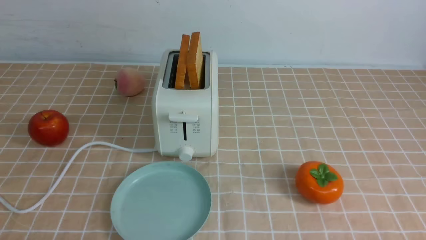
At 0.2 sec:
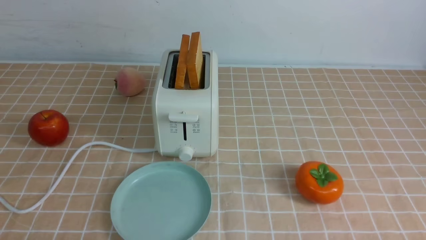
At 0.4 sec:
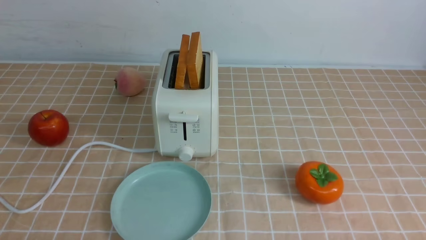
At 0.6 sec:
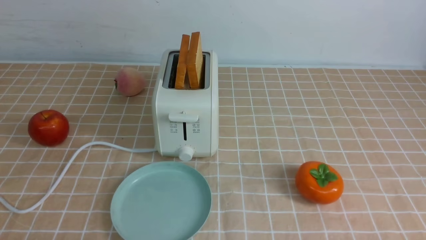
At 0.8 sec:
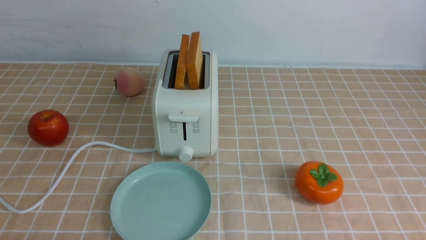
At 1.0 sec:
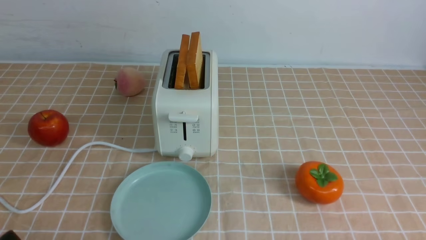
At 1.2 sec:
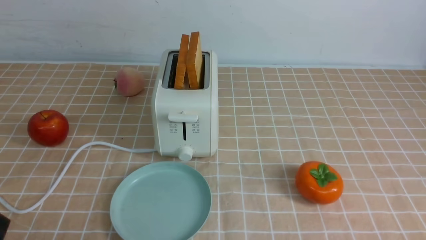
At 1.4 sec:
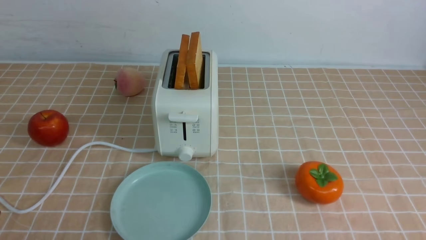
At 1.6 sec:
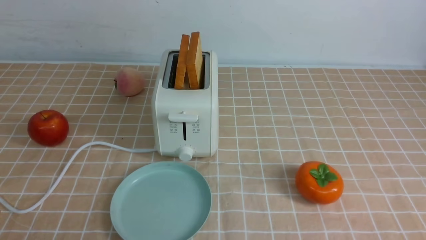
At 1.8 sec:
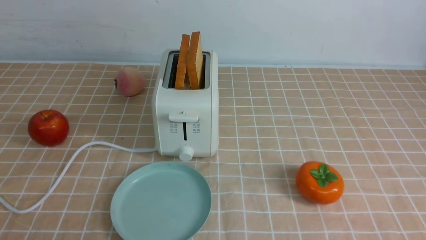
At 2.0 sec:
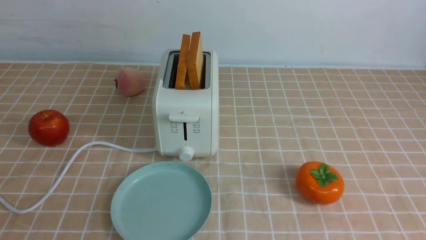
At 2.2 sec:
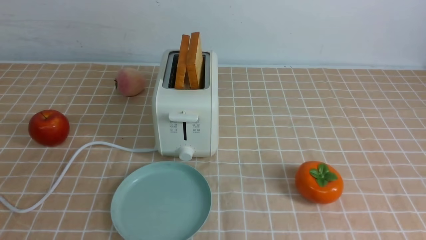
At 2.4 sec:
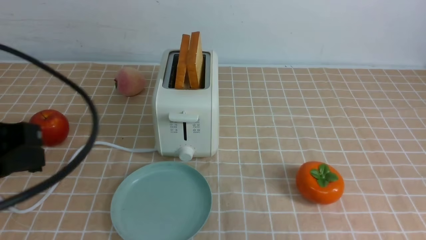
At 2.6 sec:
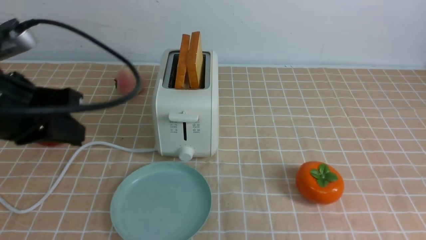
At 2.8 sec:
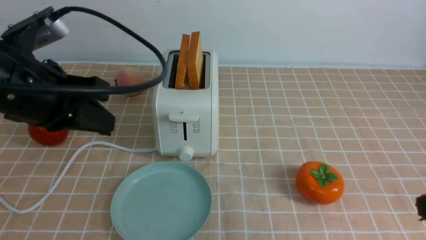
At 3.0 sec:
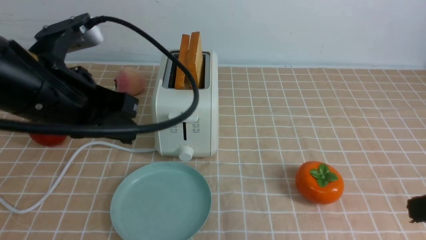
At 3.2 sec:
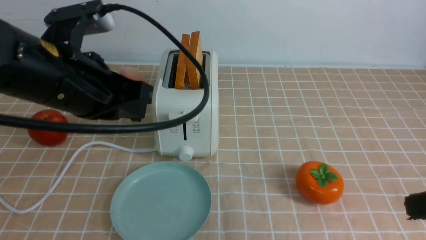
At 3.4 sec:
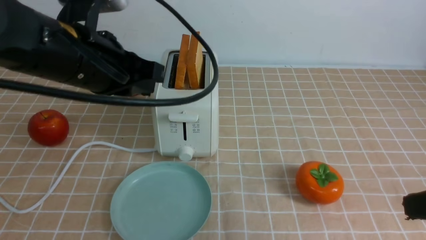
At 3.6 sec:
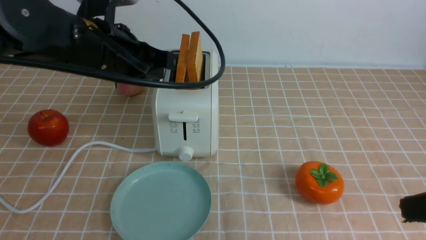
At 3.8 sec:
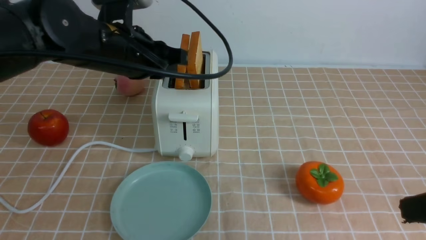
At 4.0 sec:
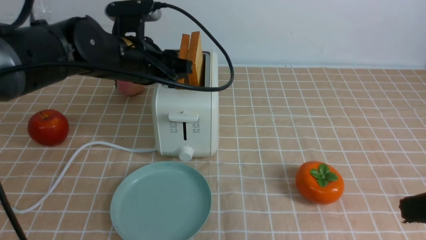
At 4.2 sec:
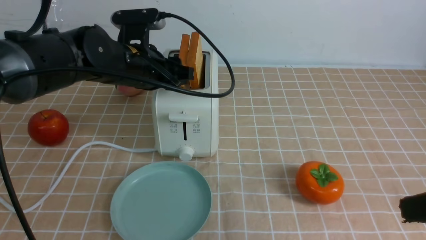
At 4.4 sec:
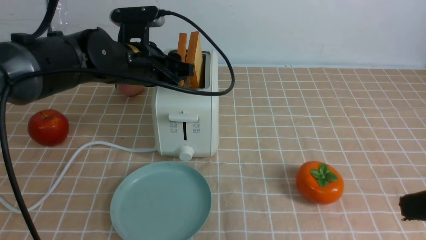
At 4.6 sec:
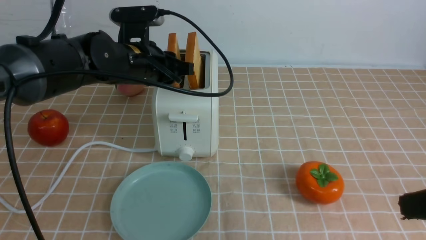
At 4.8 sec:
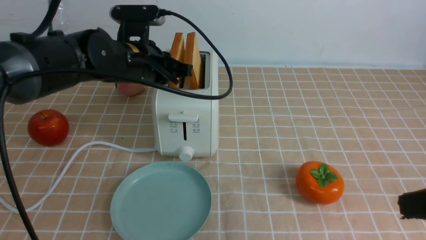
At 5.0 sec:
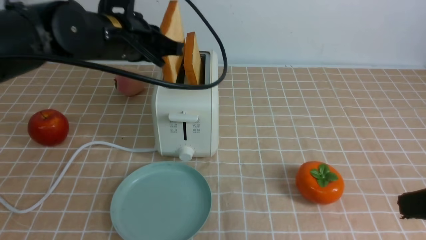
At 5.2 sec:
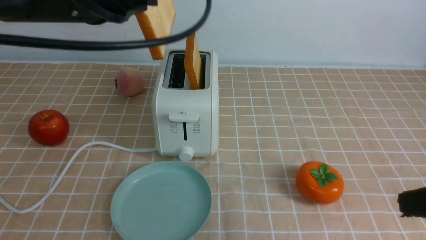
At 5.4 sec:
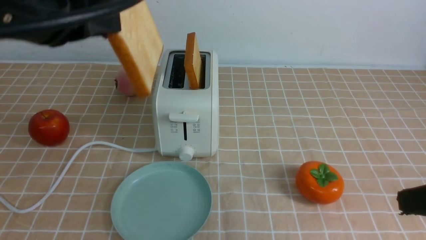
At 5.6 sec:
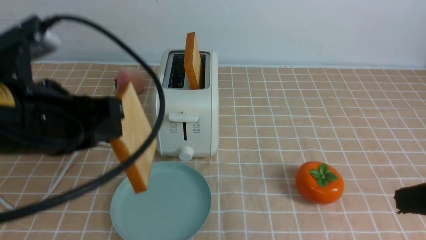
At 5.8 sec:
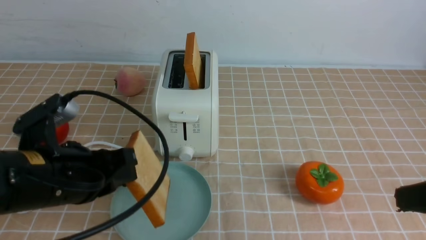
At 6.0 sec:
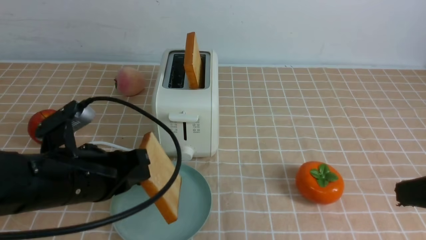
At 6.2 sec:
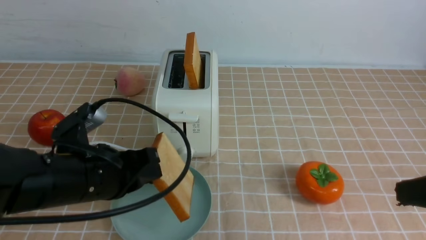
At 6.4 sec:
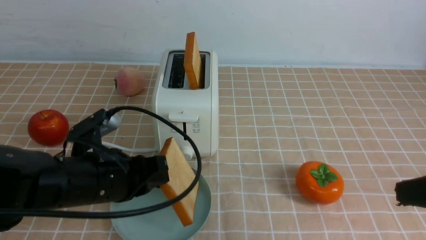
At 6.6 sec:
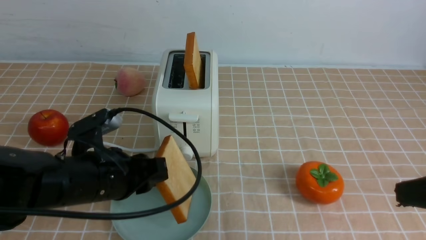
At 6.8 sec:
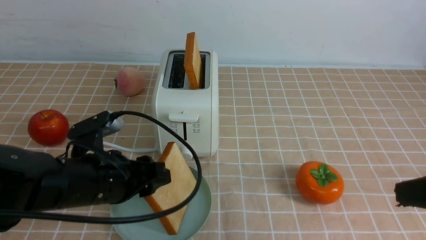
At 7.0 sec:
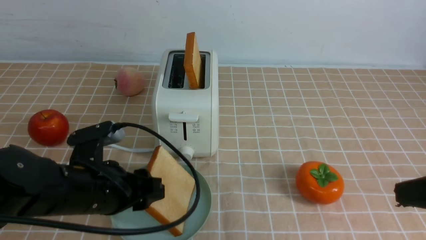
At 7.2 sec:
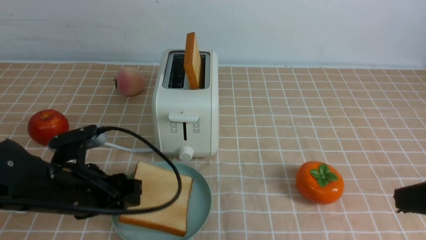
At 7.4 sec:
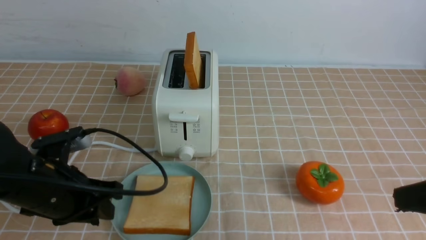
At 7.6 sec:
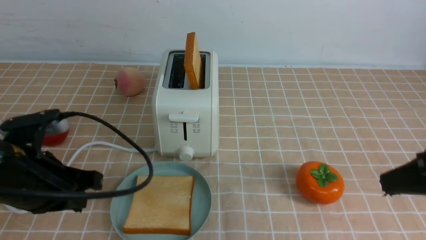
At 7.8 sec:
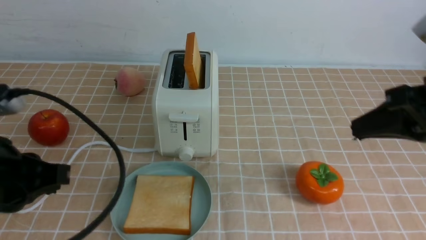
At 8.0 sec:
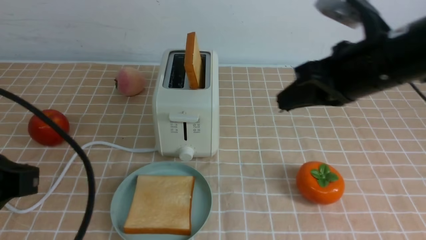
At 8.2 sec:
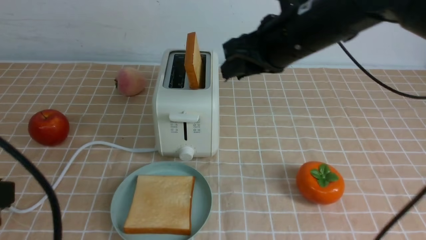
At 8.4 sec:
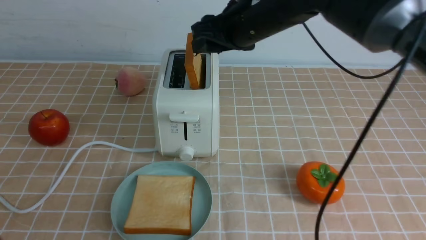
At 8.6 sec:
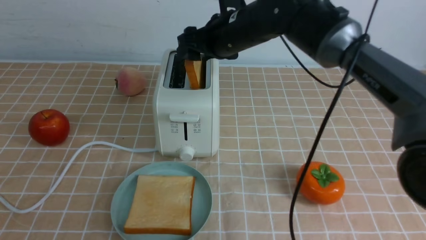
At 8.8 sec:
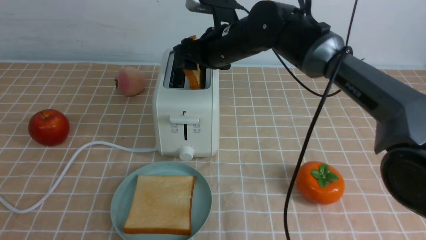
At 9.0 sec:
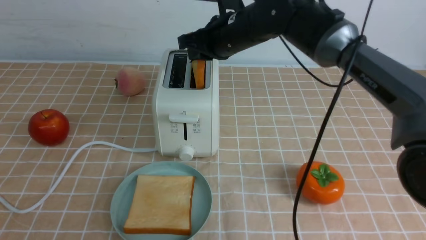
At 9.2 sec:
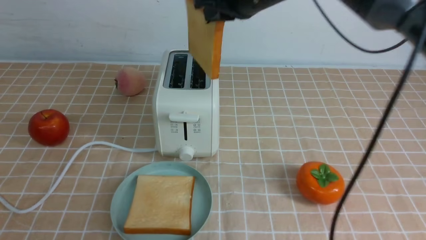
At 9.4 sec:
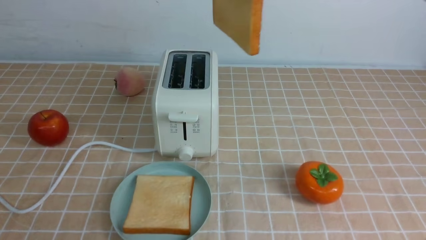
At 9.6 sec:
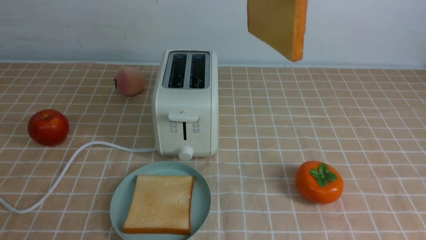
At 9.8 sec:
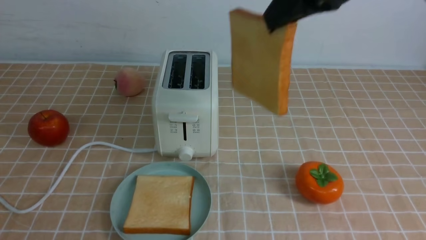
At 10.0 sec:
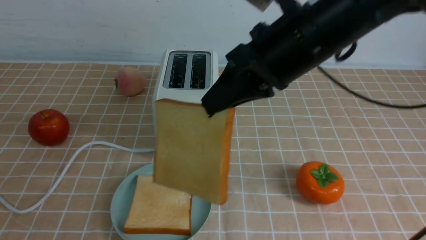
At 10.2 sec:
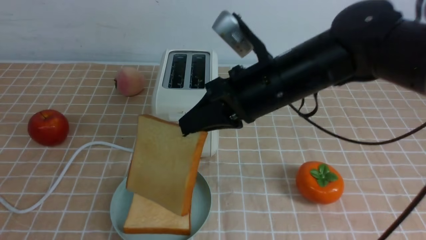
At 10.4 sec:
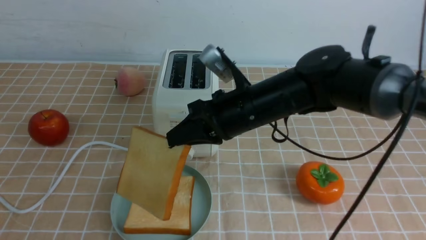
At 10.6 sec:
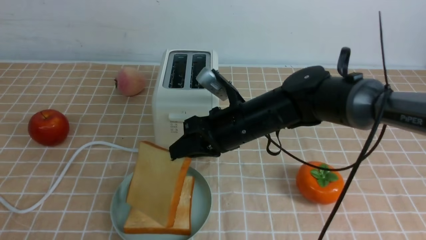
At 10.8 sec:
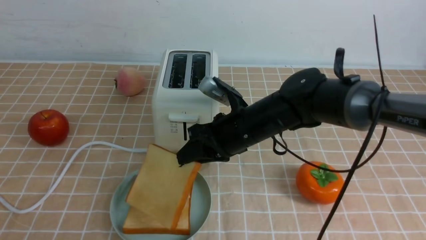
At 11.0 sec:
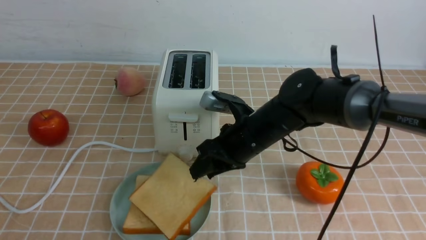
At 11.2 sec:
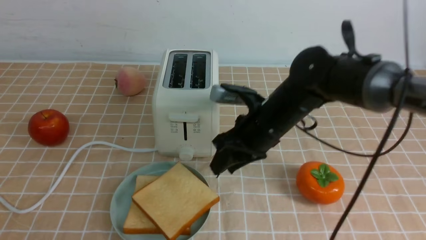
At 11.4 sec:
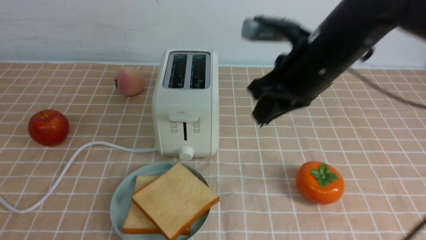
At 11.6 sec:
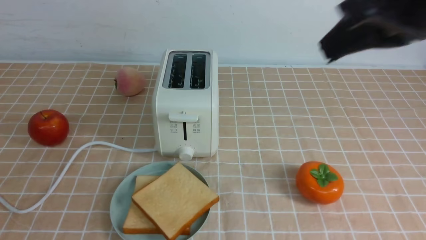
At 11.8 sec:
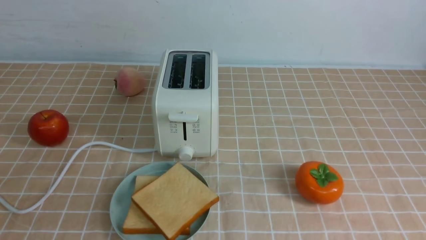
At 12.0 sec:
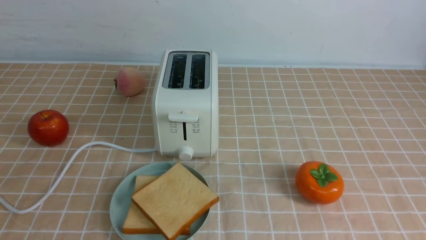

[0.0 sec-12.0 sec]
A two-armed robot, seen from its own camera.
Task of the whole recording: take toasted bread from bread machine on light coffee tablecloth place on plate.
Step, 0.0 sec to 5.0 sec: use the left arm to take out a slice of bread.
Step, 5.2 sec to 7.2 sec: use the left arm to put a slice of bread into the empty plate.
Step, 7.6 sec to 9.0 sec: use the right arm to take out a slice of bread.
Step, 9.2 sec to 11.0 sec: use the right arm to put a slice of bread into the plate.
1.6 sec to 3.0 sec: The left gripper moves forward, upward and to the right, about 25 cm, and closes up; the right gripper is displaced upward and forward by approximately 15 cm, and closes its fingers.
3.0 sec to 4.4 sec: The left gripper is displaced forward and downward by about 15 cm, and opens its fingers.
4.4 sec to 6.0 sec: The left gripper is displaced backward by approximately 20 cm, and closes up.
6.0 sec to 7.6 sec: The left gripper ends up about 5 cm from where it was, and opens and closes again.
7.6 sec to 9.0 sec: The left gripper goes approximately 20 cm backward and upward. The right gripper heads forward and to the left, covering roughly 35 cm, and opens, then closes once more.
9.0 sec to 10.4 sec: The right gripper moves backward and downward, some 15 cm.
10.4 sec to 12.0 sec: The right gripper moves backward, to the right and upward, about 40 cm, and opens and closes again.

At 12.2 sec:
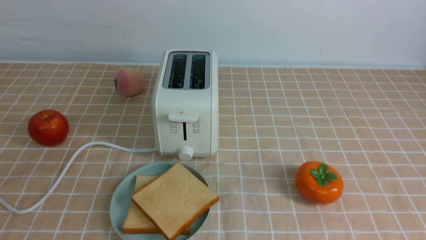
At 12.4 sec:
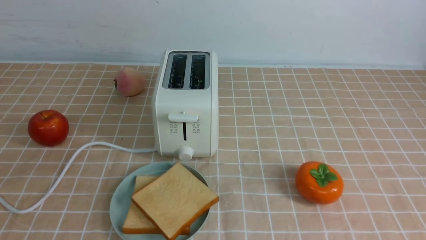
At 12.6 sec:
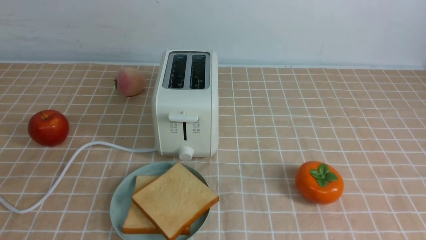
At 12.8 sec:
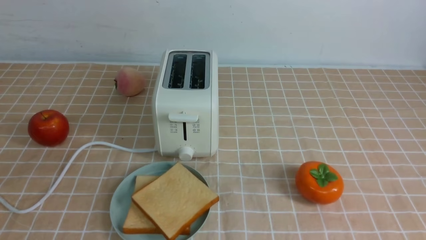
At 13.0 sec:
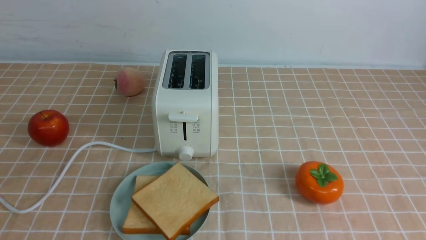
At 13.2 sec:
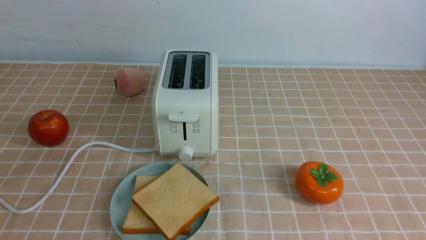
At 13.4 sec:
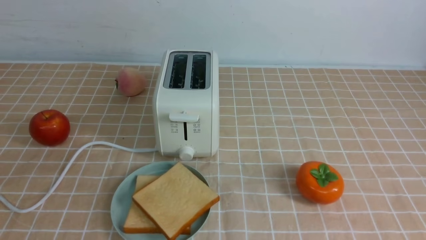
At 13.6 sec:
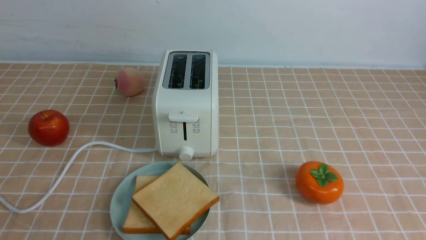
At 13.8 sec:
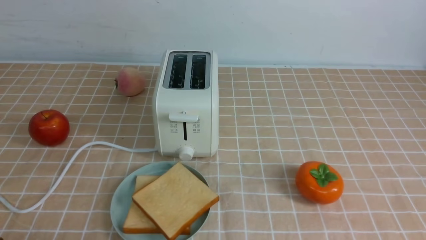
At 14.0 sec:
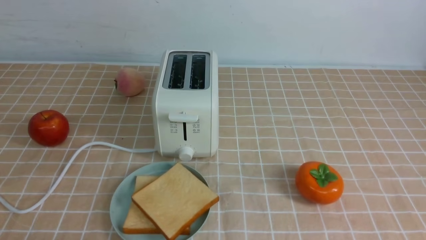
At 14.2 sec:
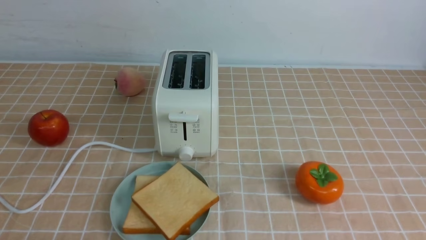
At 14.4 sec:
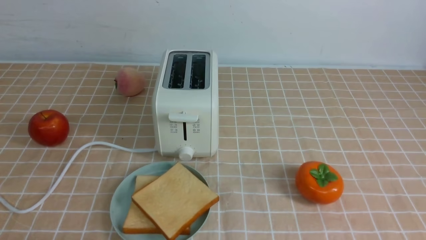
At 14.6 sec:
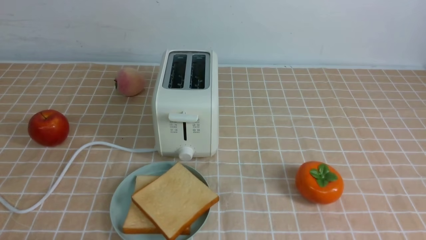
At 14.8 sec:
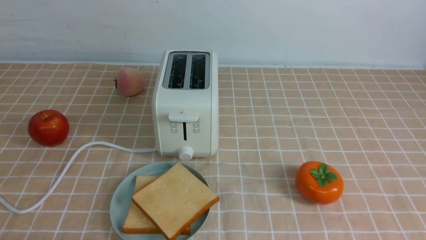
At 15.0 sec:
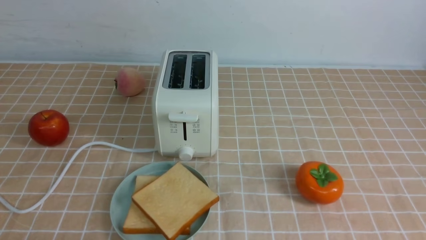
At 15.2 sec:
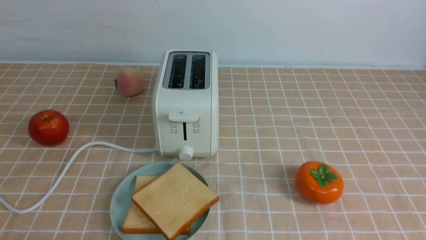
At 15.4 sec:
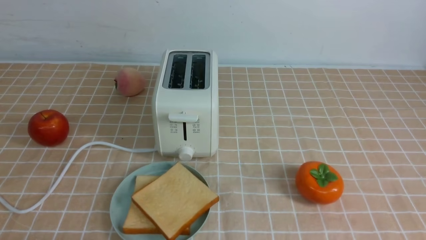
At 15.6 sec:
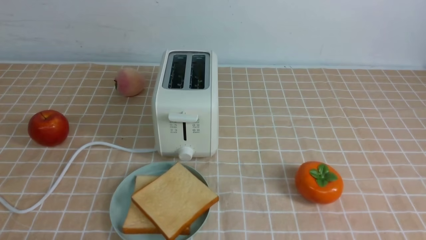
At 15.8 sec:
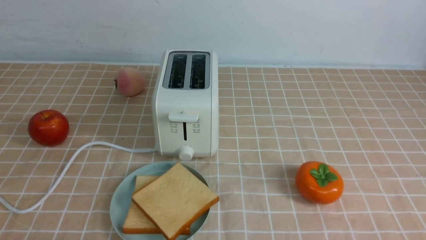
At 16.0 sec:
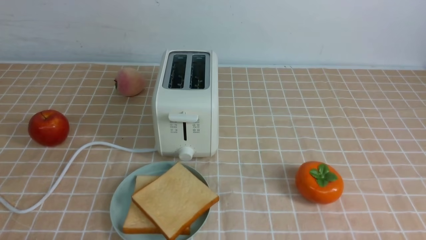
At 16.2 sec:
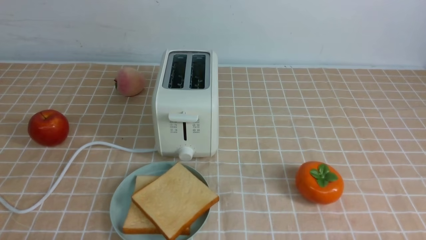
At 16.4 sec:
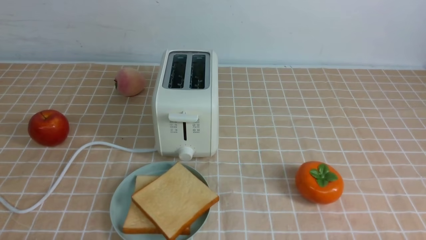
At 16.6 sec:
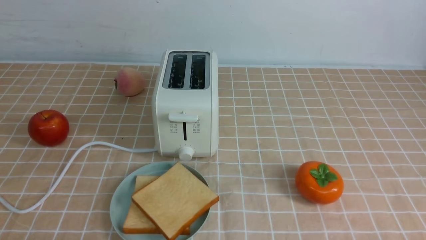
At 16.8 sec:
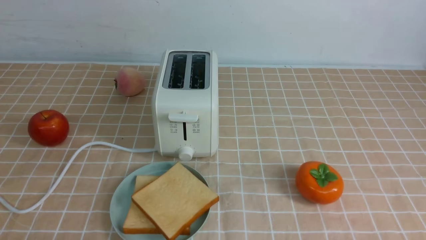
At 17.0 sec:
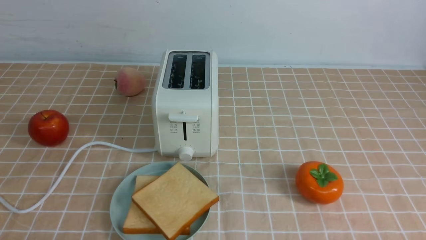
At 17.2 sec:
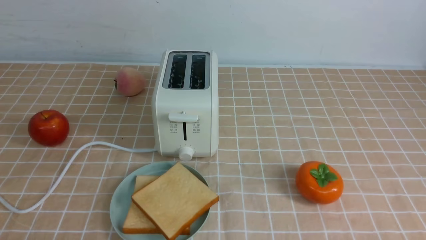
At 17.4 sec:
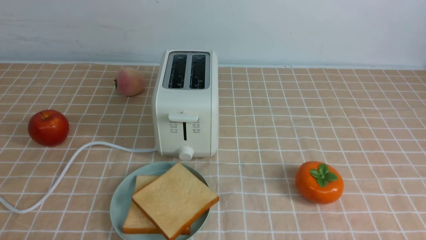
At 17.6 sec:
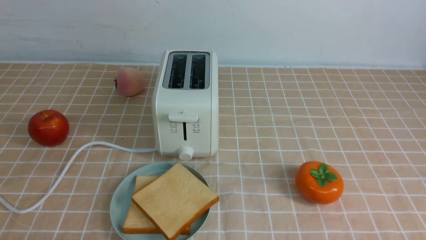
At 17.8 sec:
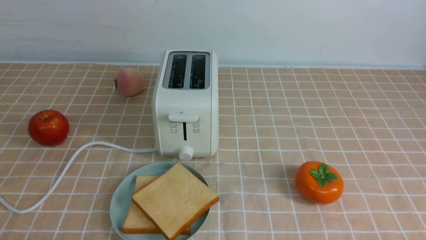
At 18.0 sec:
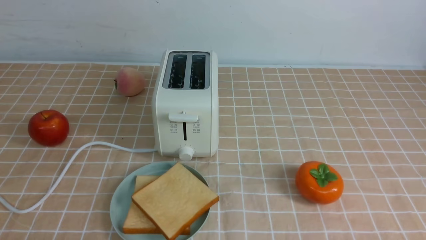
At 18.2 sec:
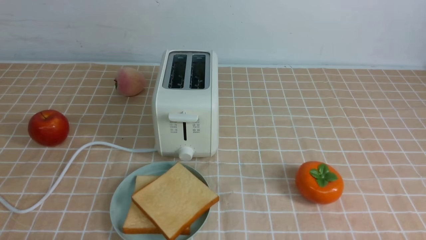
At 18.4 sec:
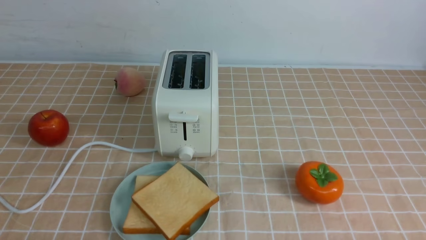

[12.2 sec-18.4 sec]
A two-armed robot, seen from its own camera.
Task of the whole recording: take toasted bread from bread machine on light coffee tablecloth place on plate.
16.8 sec to 18.4 sec: Neither gripper changes place.
